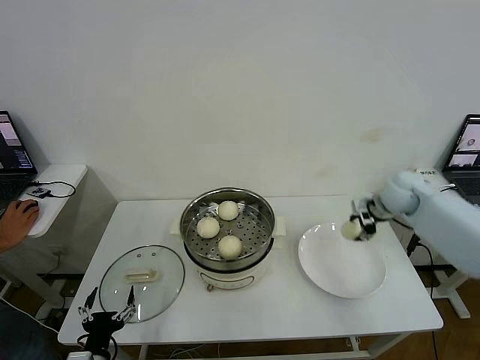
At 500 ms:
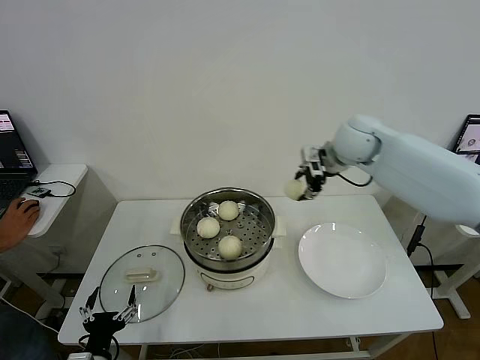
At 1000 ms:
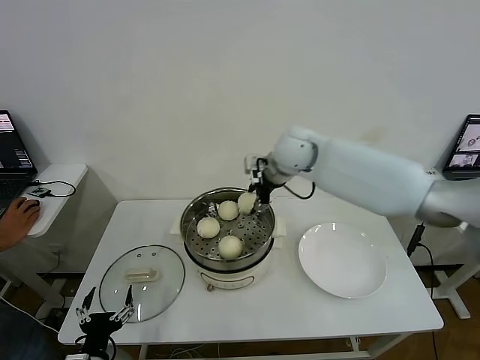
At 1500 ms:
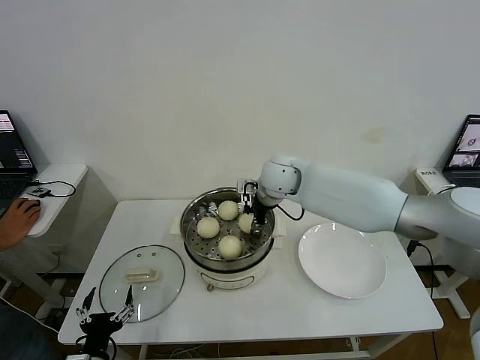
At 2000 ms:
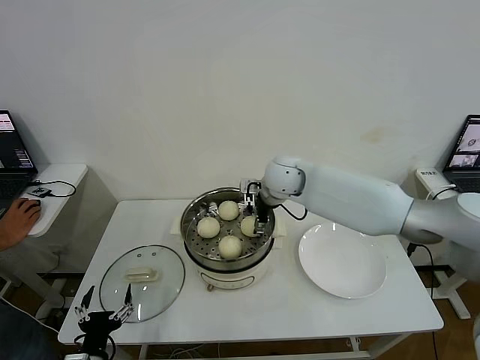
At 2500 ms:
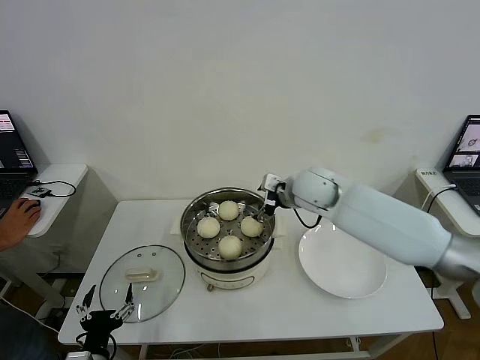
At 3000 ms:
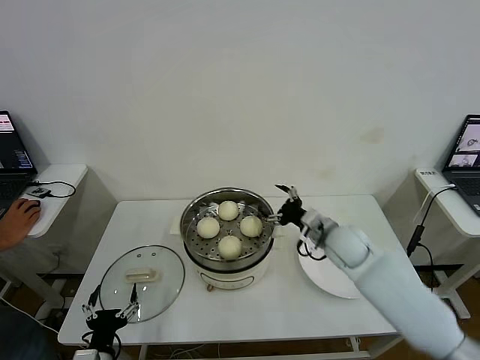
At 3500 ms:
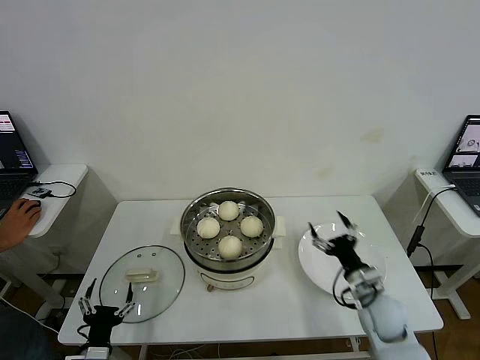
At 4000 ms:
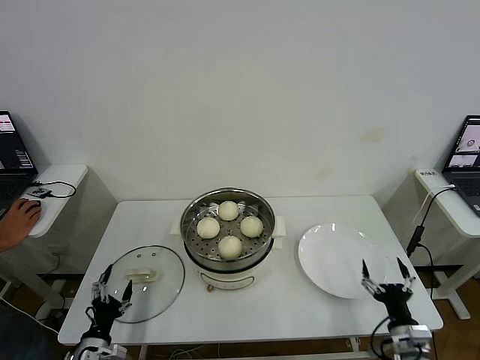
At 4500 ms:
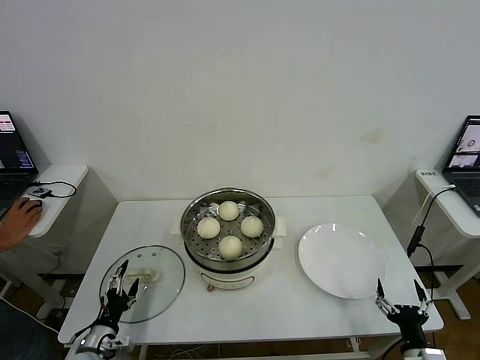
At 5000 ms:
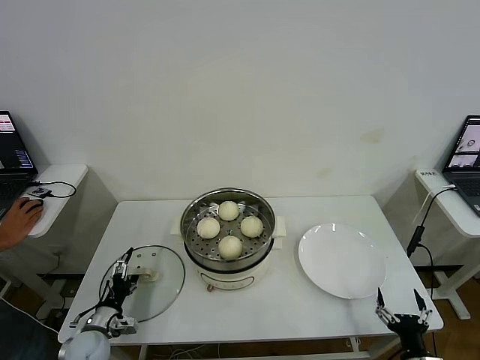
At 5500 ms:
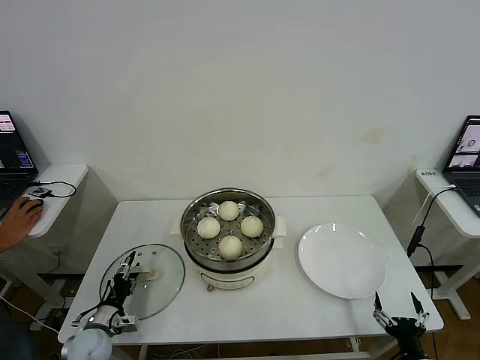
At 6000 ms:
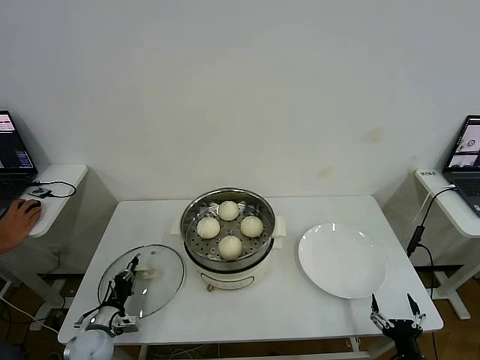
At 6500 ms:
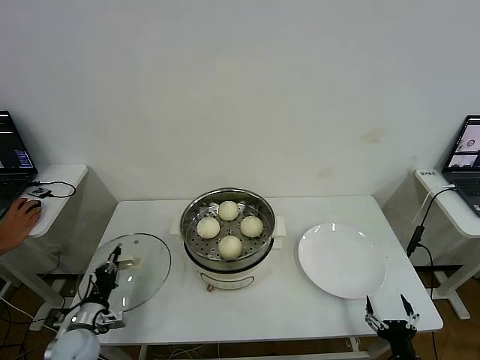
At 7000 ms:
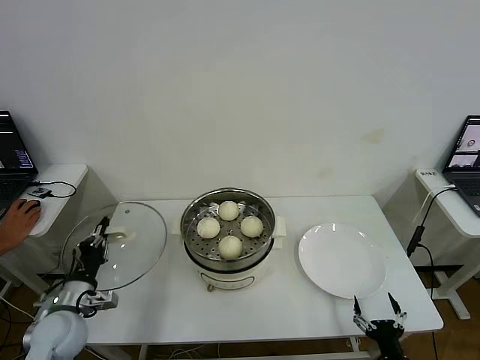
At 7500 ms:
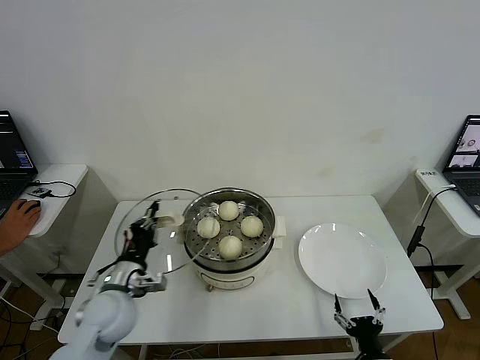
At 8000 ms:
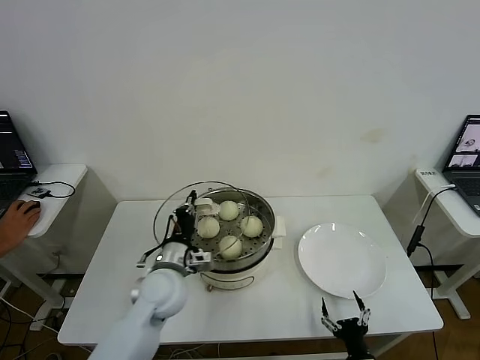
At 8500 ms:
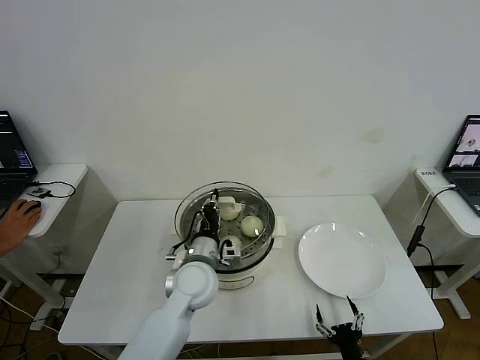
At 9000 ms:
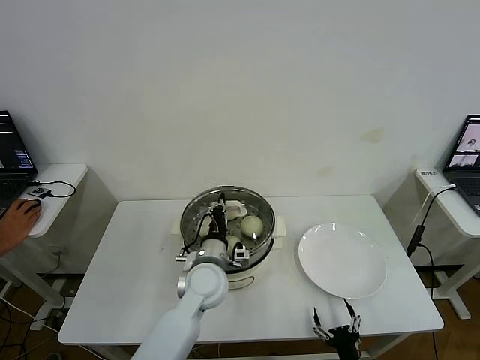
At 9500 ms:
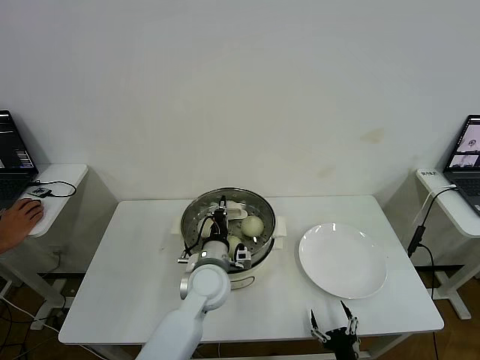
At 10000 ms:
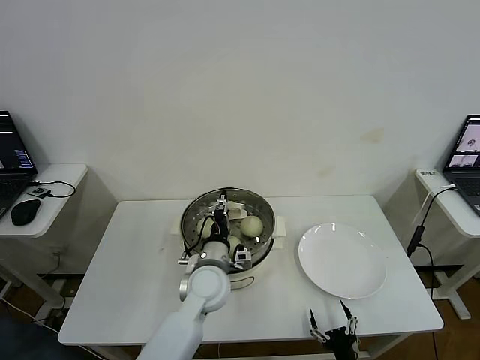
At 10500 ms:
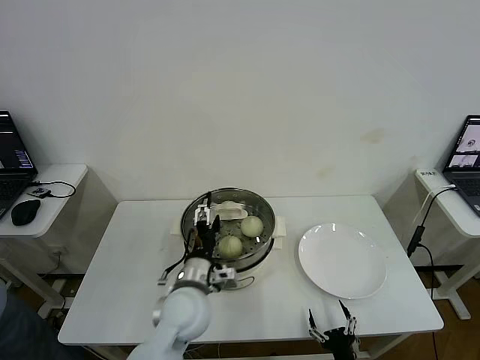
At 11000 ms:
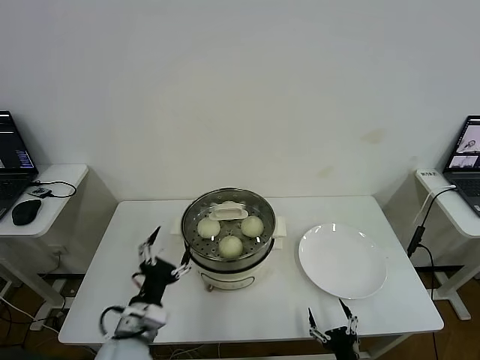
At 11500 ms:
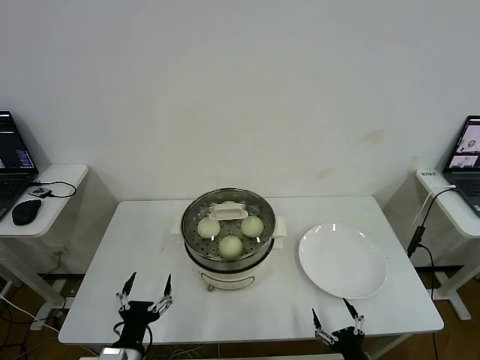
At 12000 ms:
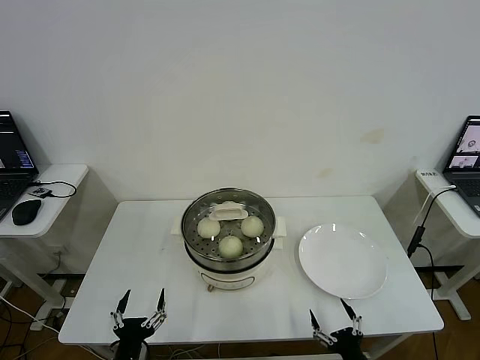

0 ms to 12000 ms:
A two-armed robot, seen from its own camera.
Step, 0 ms to 1500 ms: Place the baozi on the steamer with right gripper.
Step, 2000 ms to 6000 ms: Grasp the pot lid with left gripper.
Step, 6500 ms to 10000 ms: Place the pot lid on the steamer with left gripper.
0 ms to 2000 ms: The right gripper goes approximately 25 cm to the left, and opens up.
2000 ms to 4000 ms: The right gripper is displaced backward, to the right and downward by approximately 50 cm. The left gripper shifts roughly 5 cm downward.
4000 ms to 6000 ms: The left gripper moves forward, some 10 cm, and closes its fingers, while the right gripper is displaced backward by some 5 cm.
6000 ms to 8000 ms: The right gripper travels to the left by approximately 10 cm; the left gripper shifts some 30 cm to the right and upward.
8000 ms to 10000 ms: The left gripper heads to the right, covering approximately 10 cm.
10000 ms to 12000 ms: The left gripper goes roughly 30 cm backward, to the left and downward, and opens, while the right gripper shifts approximately 5 cm upward.
